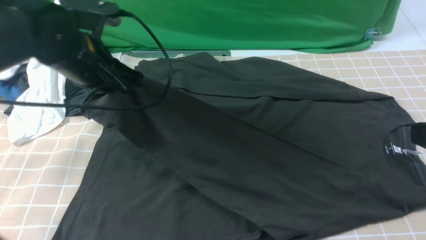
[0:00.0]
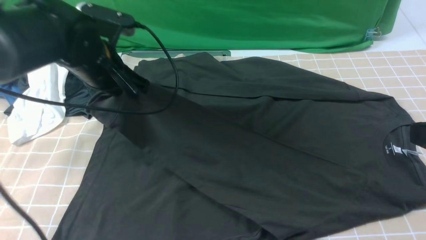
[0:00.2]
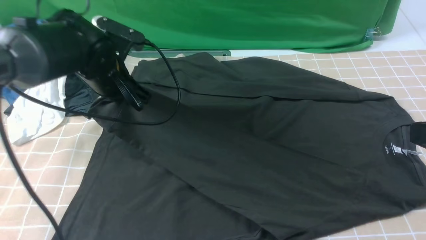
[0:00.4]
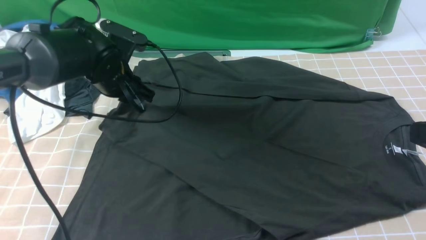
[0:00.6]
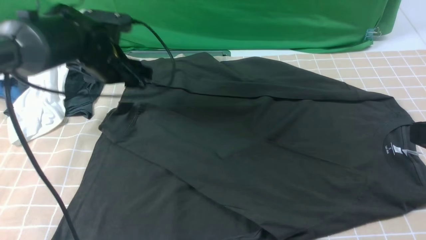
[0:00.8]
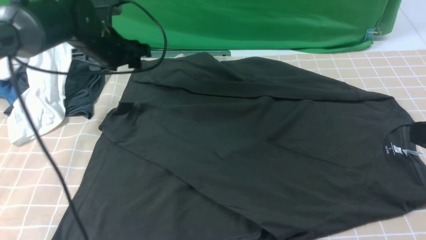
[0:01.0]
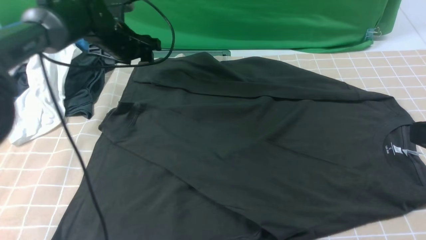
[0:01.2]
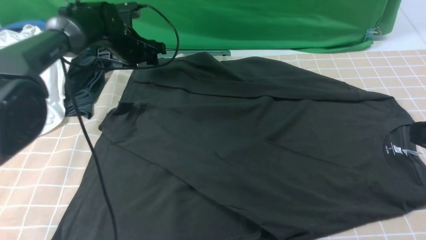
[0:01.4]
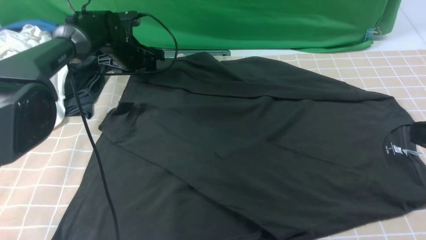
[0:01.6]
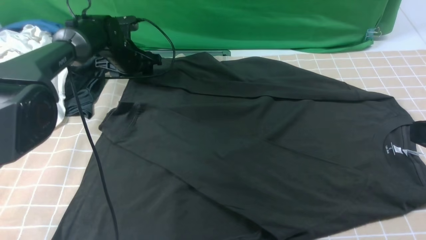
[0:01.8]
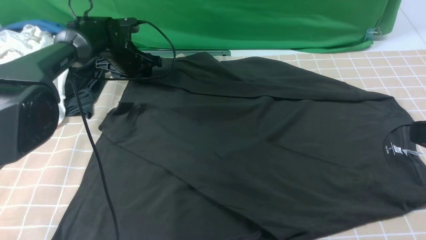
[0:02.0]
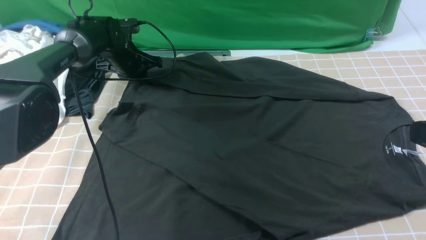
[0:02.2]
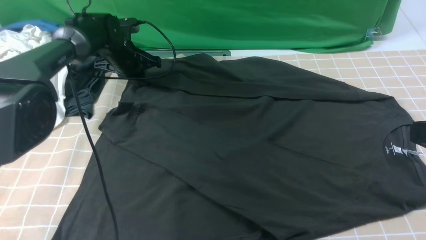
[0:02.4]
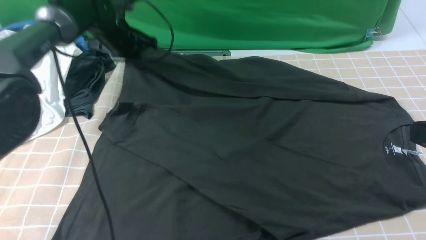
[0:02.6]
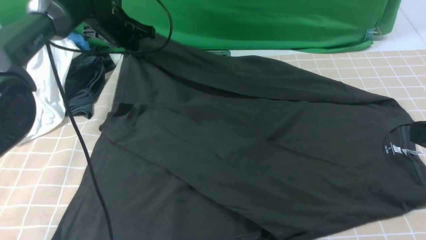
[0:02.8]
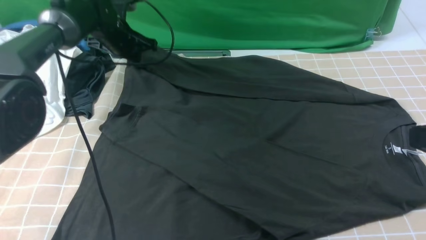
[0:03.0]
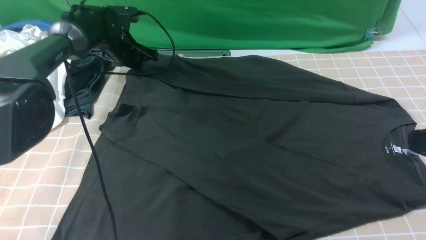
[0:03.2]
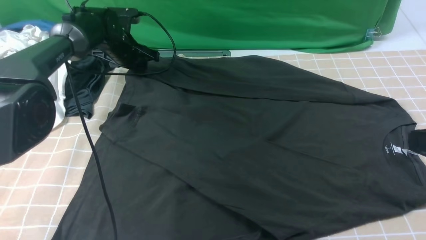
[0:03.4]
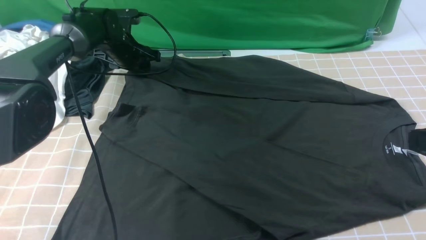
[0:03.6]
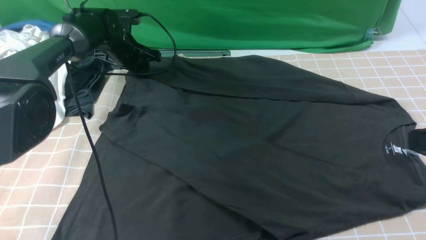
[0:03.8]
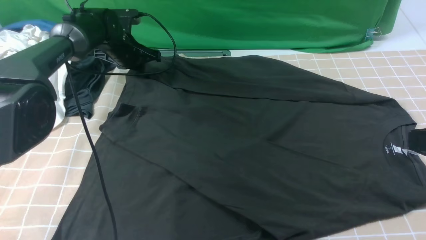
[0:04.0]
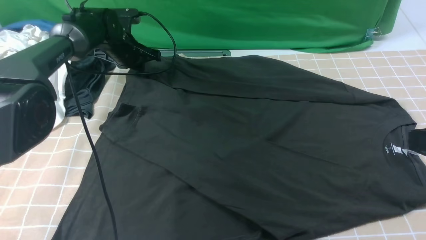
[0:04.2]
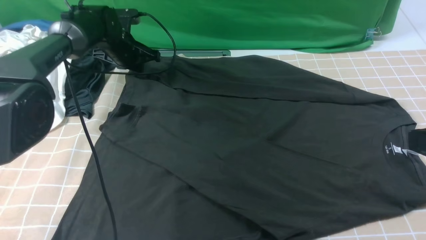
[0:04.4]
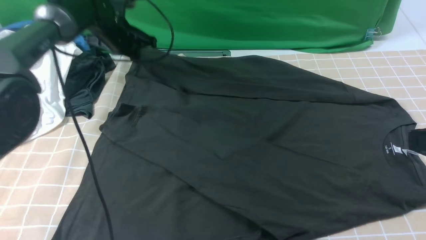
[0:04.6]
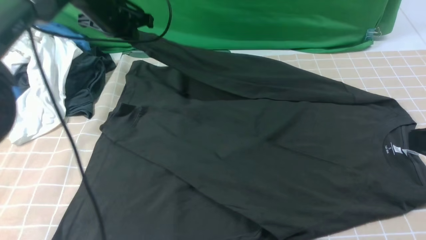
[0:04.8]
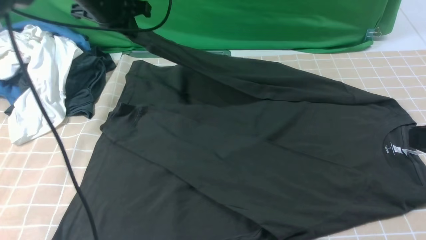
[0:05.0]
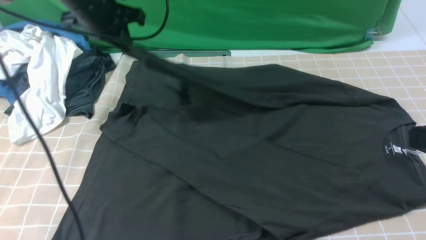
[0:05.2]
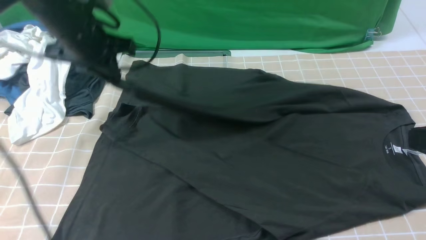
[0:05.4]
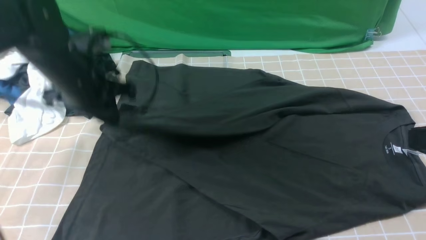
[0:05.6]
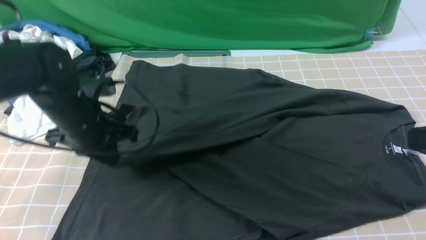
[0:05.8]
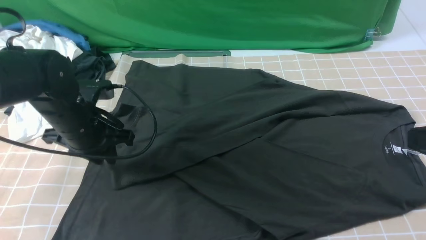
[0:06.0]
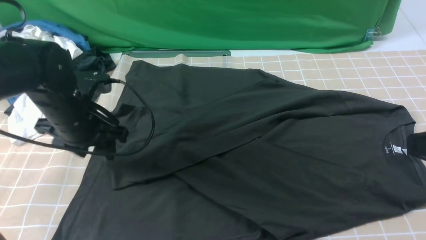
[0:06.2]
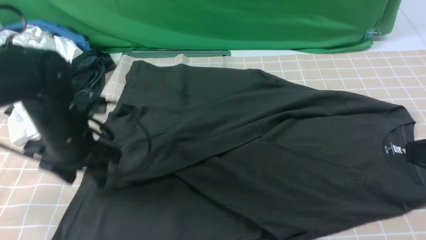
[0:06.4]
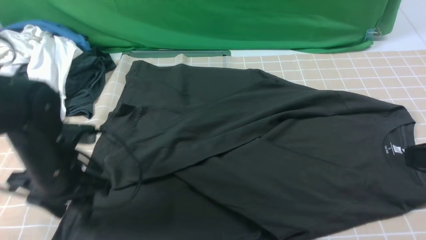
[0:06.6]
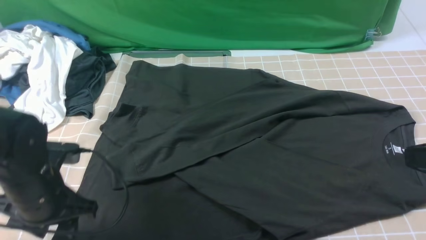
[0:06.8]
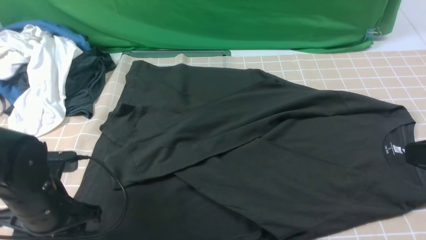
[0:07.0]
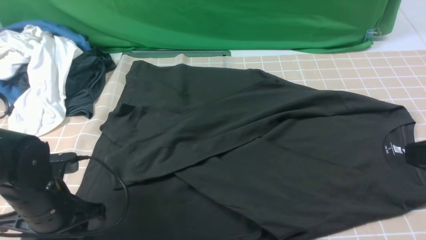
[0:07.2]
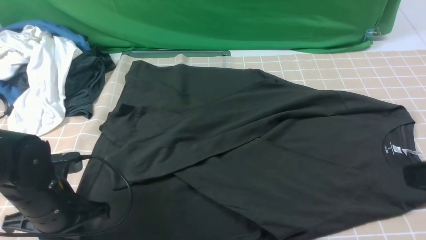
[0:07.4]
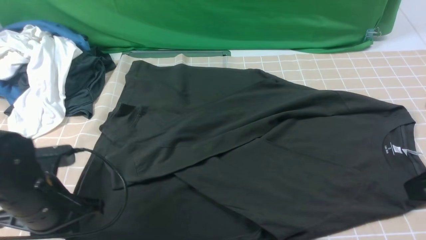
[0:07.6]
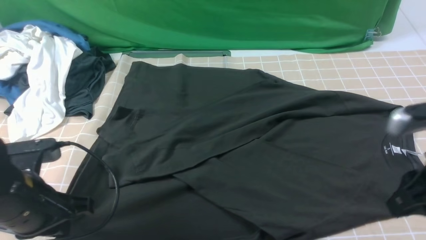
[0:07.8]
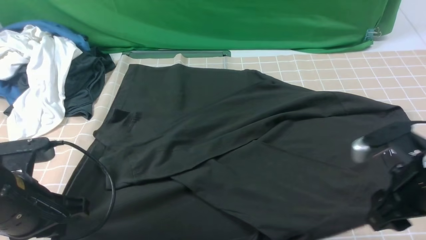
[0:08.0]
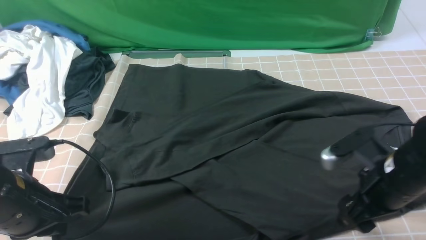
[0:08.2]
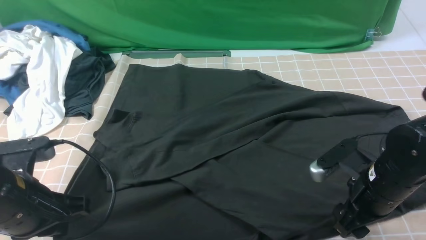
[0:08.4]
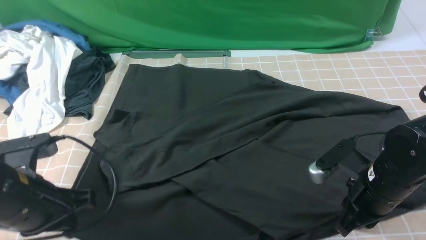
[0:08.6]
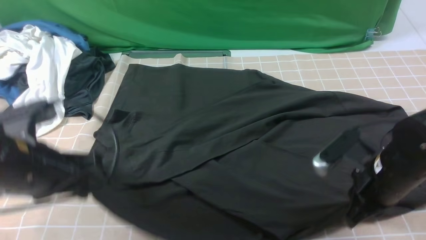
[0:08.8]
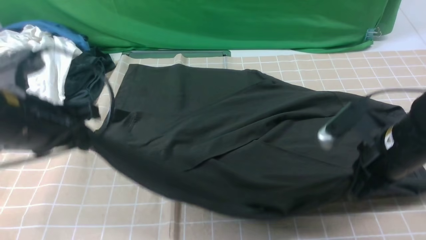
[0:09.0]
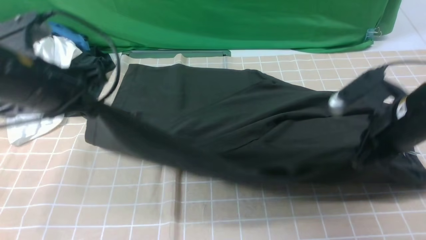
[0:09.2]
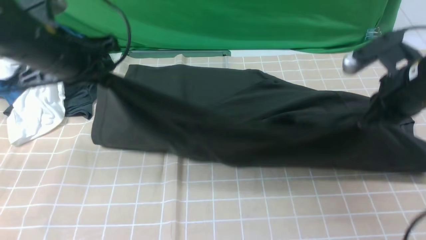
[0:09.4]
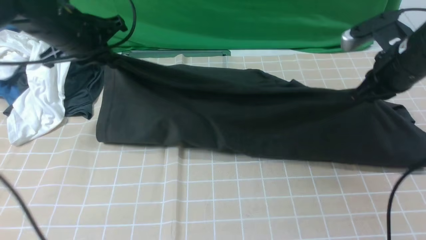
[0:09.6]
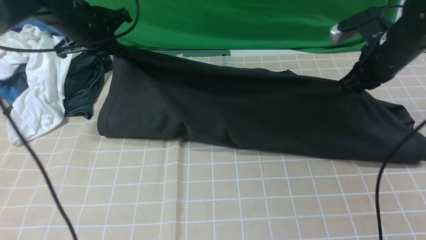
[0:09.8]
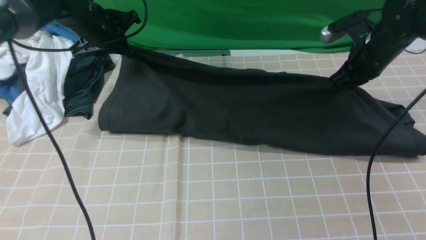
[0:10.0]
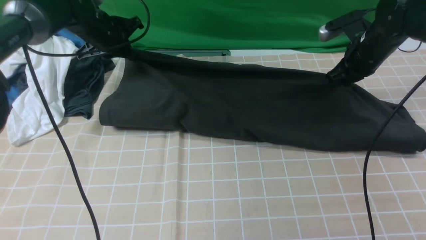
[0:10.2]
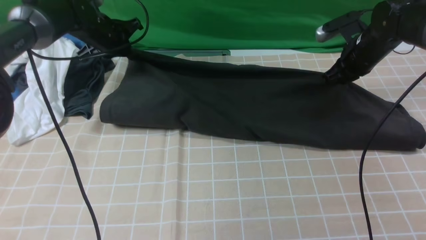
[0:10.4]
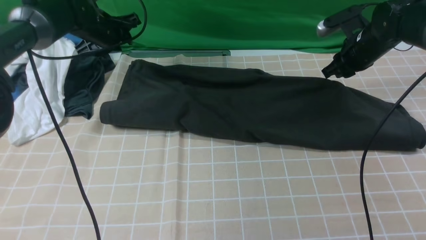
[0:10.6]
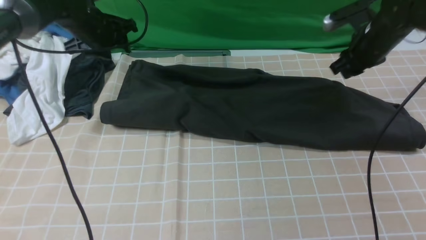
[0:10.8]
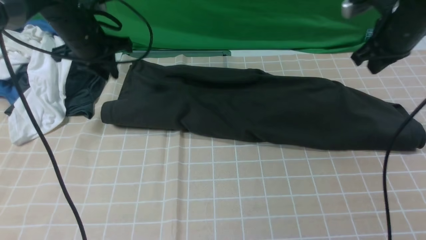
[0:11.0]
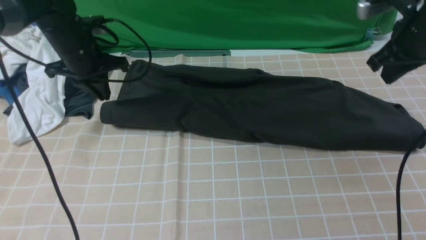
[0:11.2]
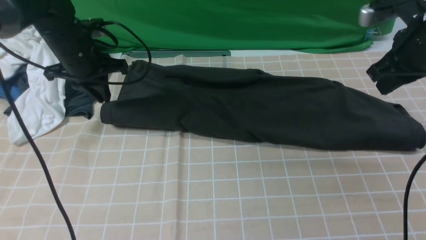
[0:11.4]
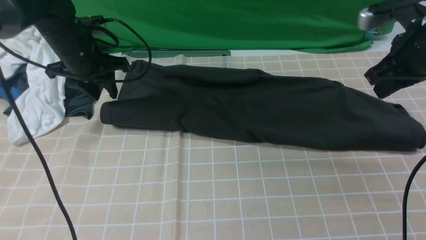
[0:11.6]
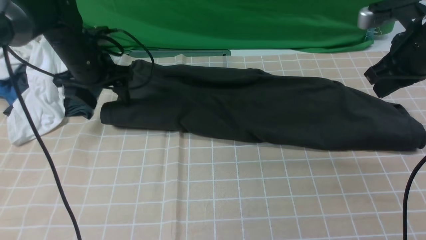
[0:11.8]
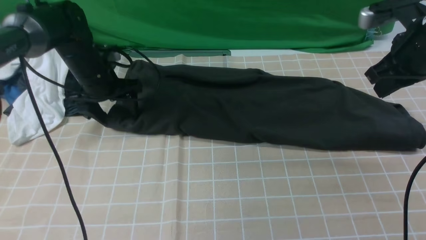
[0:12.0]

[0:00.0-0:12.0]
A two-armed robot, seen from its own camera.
Step, 0.8 to 4.4 s: use the left arm to clamp the cuff farthest from it.
Step, 4.6 to 6.0 s: use the left arm to drag and drop the cuff onto the cuff closest to the left arm.
Step, 6.2 to 8.8 s: use both arms simultaneously to clamp the lower edge of the clothing fabric.
Step, 9.0 to 10.8 s: use both arms to drag the lower edge of the fabric forward and fold it over the upper edge.
0.0 to 1.6 s: The left gripper shifts some 25 cm forward and downward, and opens.
1.6 to 3.0 s: The left gripper closes up.
3.0 to 4.4 s: The left gripper opens and closes again.
4.4 to 6.0 s: The left gripper goes some 20 cm backward, and opens up.
6.0 to 7.6 s: The left gripper is displaced backward by some 10 cm, and closes.
7.6 to 9.0 s: The left gripper is displaced upward by roughly 10 cm; the right gripper is displaced forward and downward by roughly 10 cm, and opens and closes again.
9.0 to 10.4 s: Both grippers travel together forward, some 25 cm.
10.4 to 12.0 s: The right gripper is displaced backward and upward by about 15 cm. The left gripper moves backward, about 5 cm, and opens up.

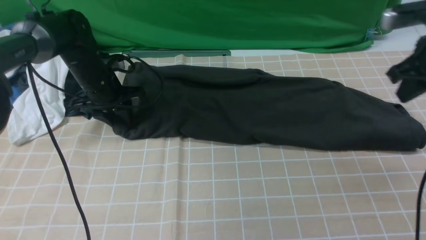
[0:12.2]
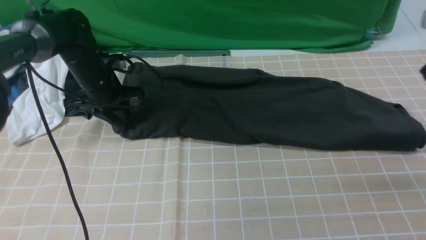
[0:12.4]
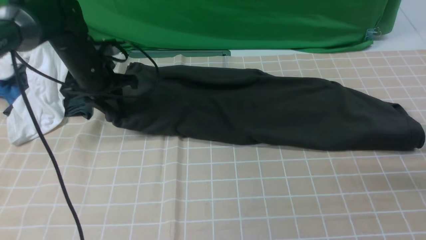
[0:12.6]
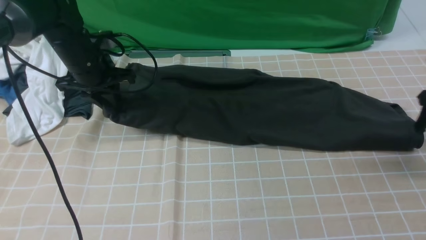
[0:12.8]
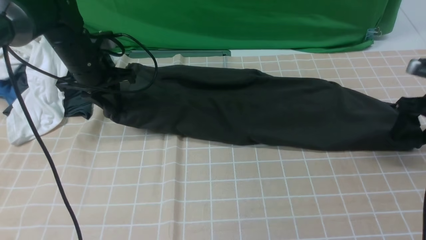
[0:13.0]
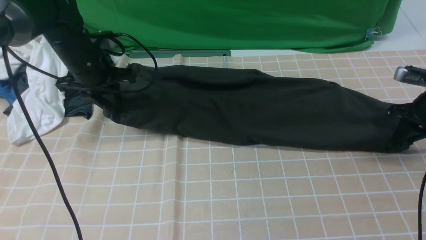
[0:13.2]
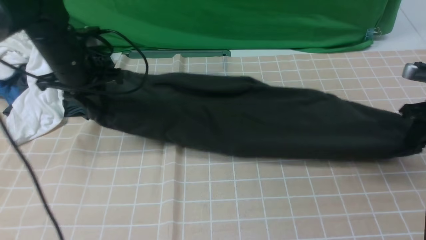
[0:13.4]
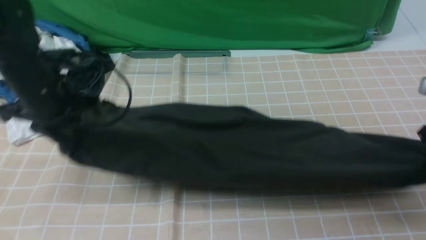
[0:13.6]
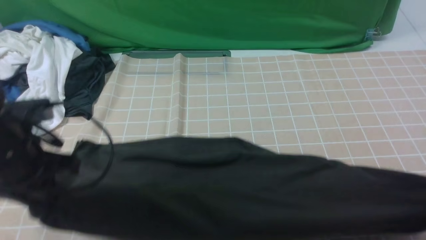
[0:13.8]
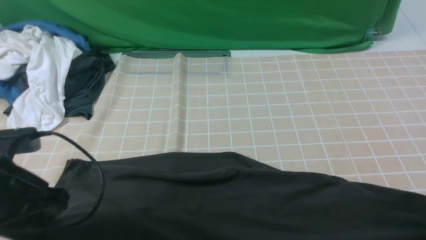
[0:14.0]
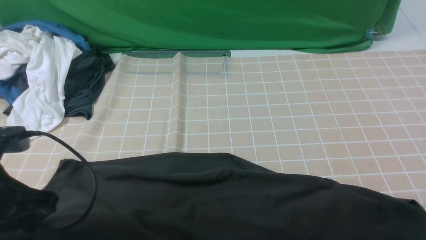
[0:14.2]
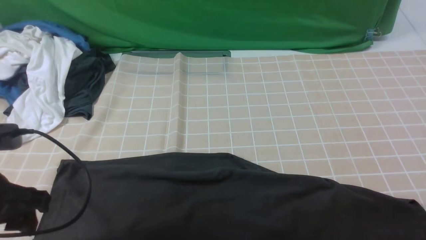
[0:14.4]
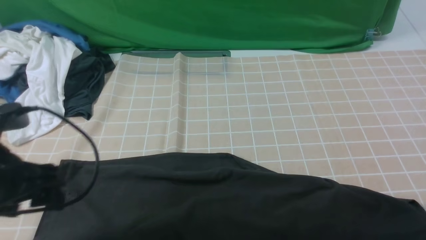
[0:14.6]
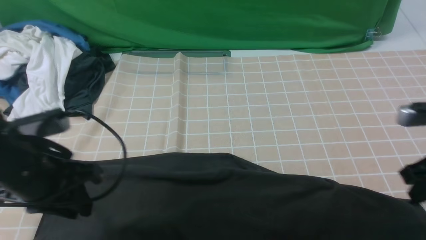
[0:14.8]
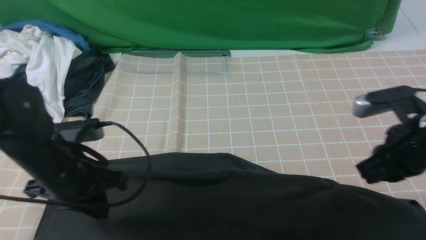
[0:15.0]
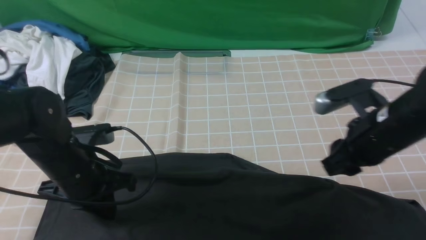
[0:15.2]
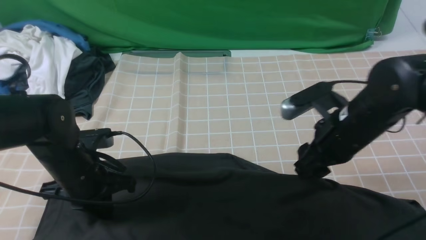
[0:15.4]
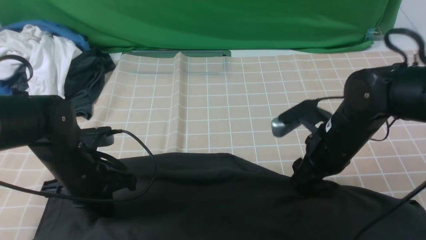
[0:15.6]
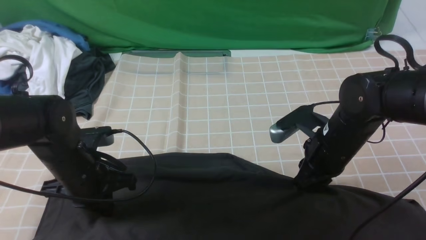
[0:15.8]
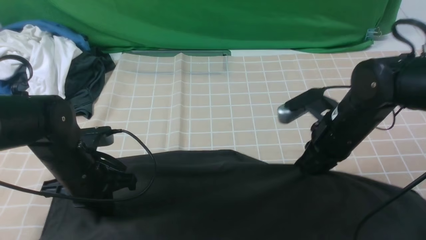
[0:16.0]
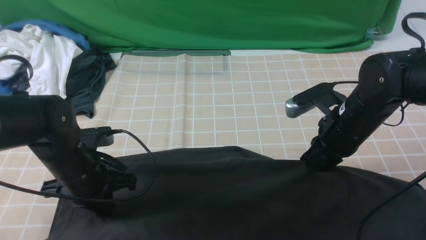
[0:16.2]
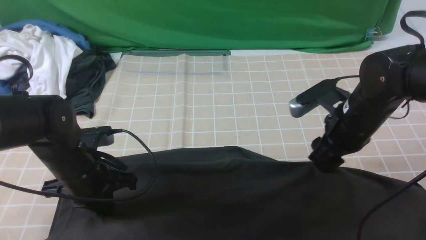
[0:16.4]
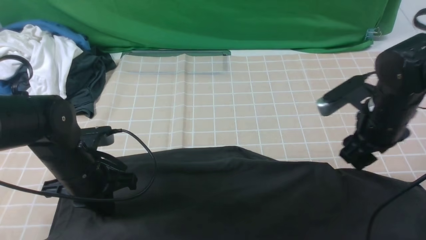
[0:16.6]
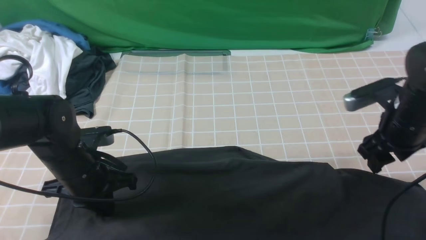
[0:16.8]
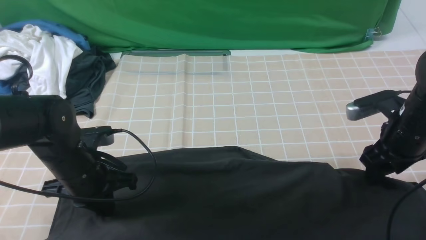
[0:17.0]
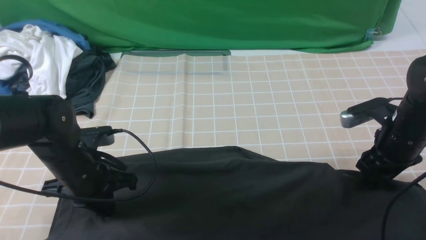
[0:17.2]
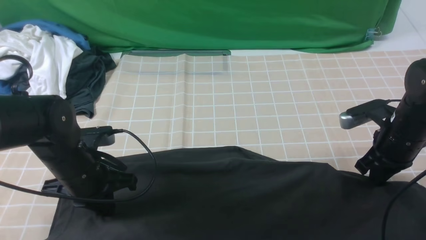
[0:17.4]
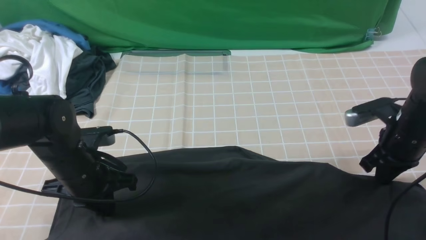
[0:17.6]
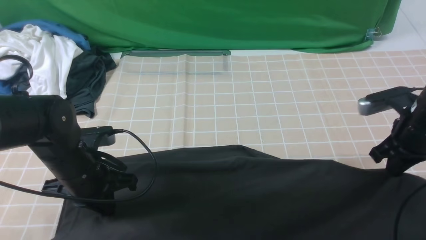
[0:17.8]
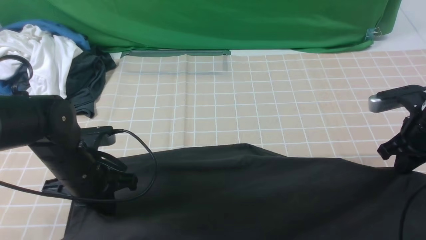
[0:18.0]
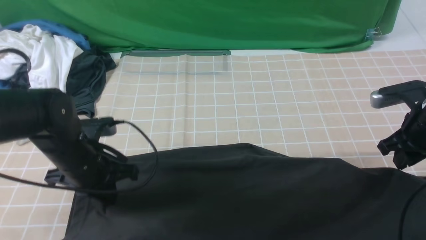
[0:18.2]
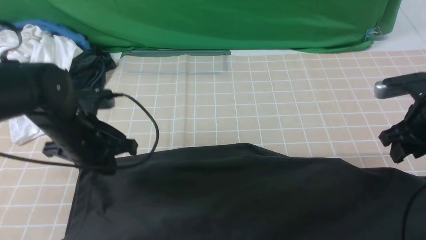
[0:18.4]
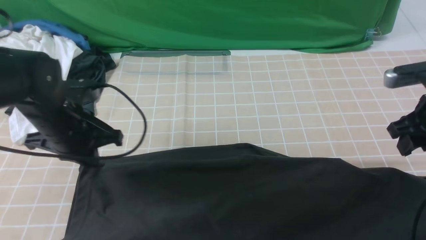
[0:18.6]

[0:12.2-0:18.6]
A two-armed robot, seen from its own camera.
12.2 to 13.8 s: The right gripper is displaced backward and downward by about 15 cm, and opens and closes again. The left gripper shifts approximately 25 cm backward and upward.
13.8 to 15.4 s: The left gripper is displaced downward by approximately 10 cm, and opens, then closes once more, while the right gripper moves to the left, about 20 cm, and opens.
15.4 to 17.0 s: The right gripper heads to the right, covering about 10 cm, and closes and opens again.
17.0 to 18.6 s: The left gripper ends up approximately 5 cm from where it was; the right gripper shifts approximately 5 cm upward, and closes and opens again.
